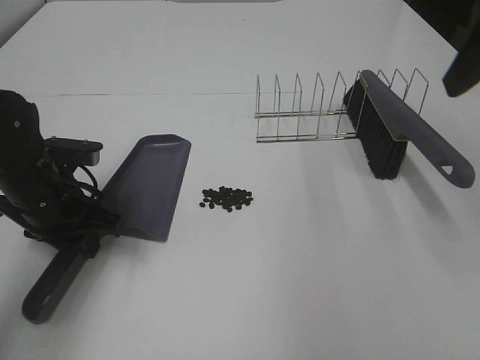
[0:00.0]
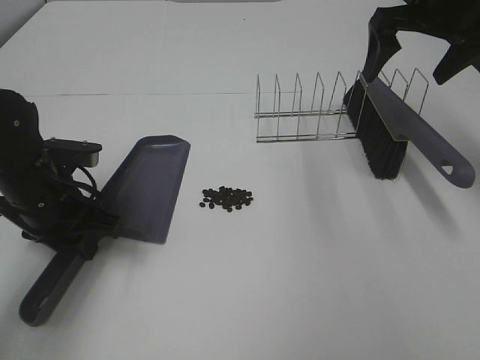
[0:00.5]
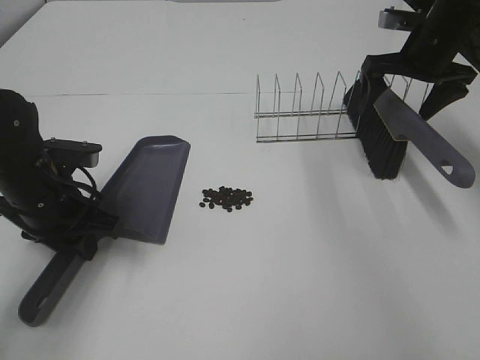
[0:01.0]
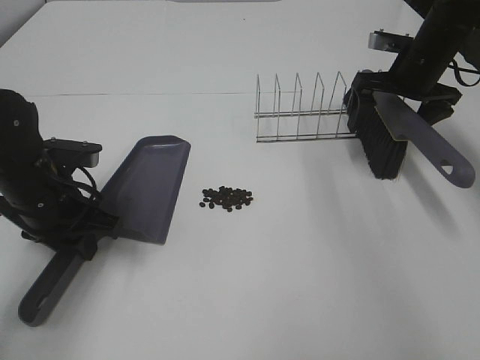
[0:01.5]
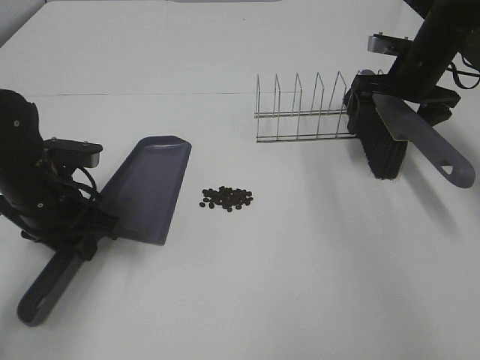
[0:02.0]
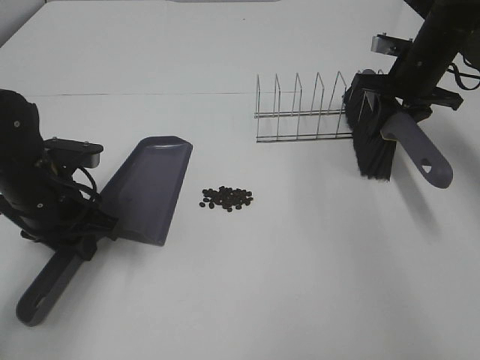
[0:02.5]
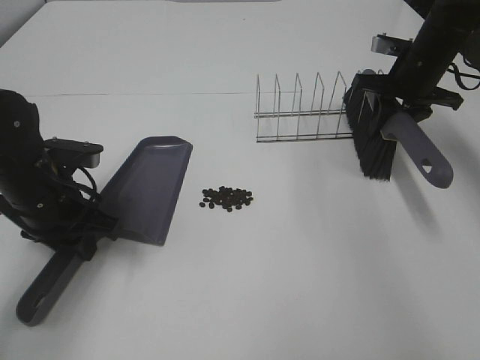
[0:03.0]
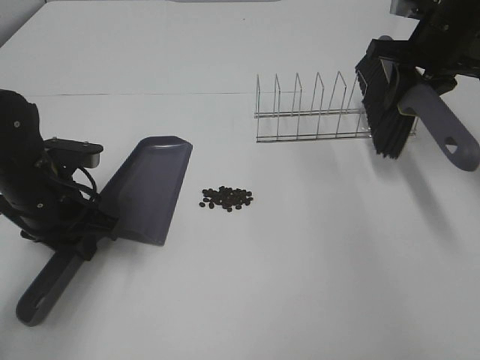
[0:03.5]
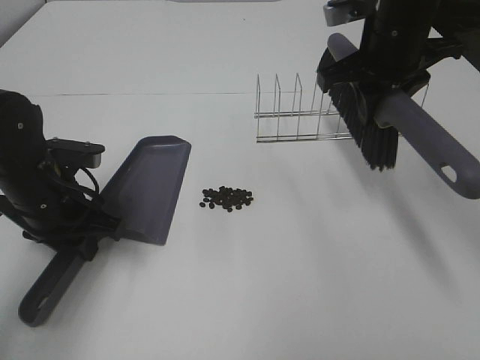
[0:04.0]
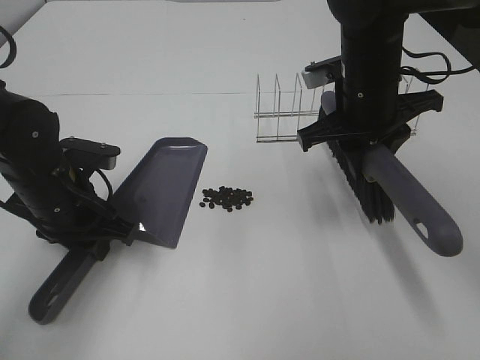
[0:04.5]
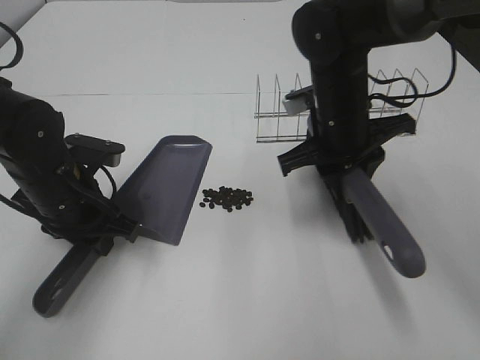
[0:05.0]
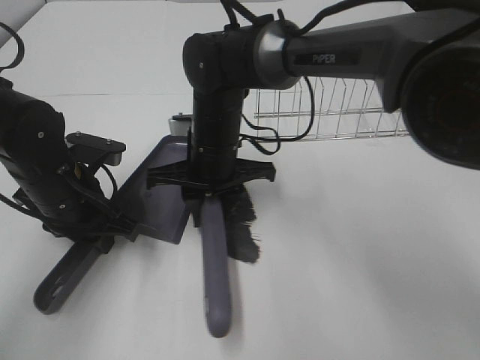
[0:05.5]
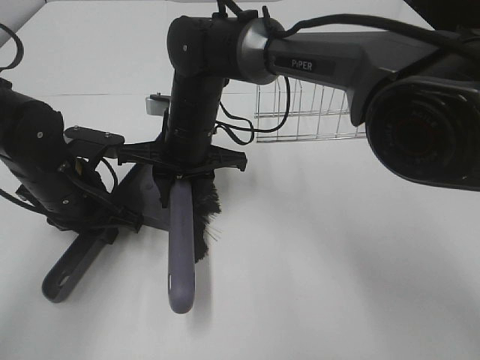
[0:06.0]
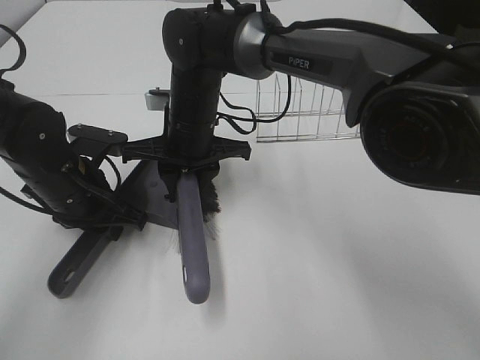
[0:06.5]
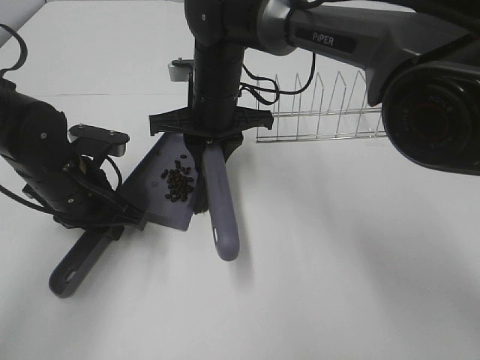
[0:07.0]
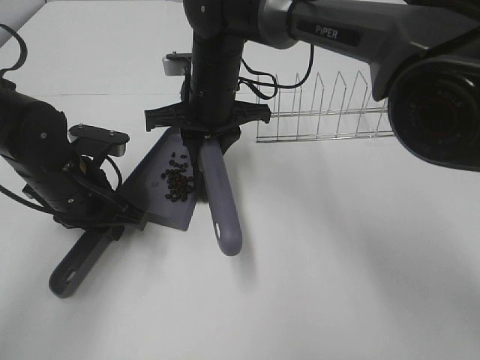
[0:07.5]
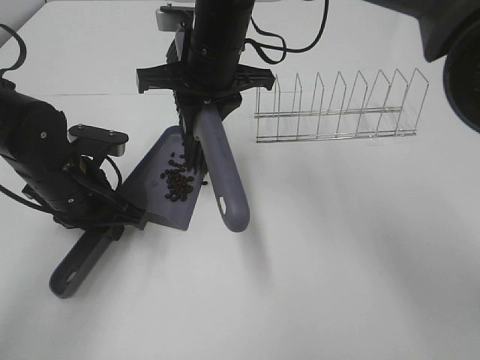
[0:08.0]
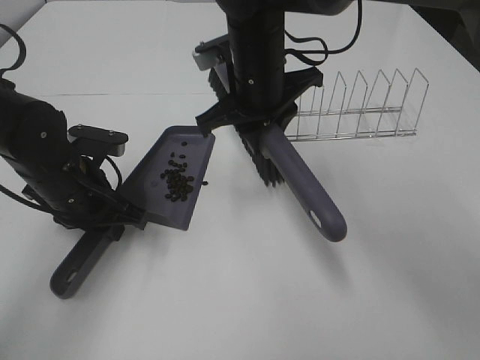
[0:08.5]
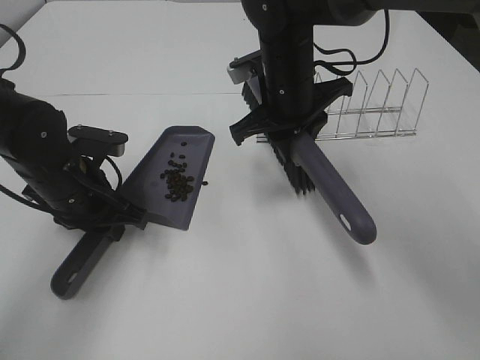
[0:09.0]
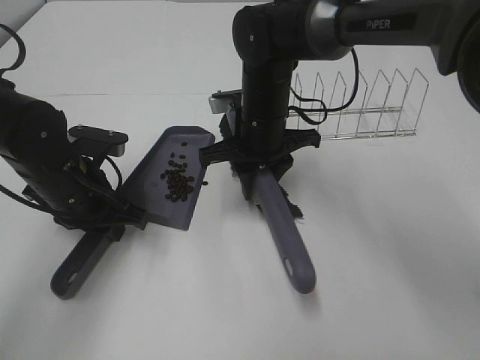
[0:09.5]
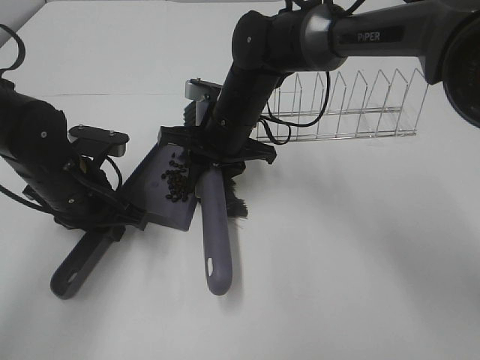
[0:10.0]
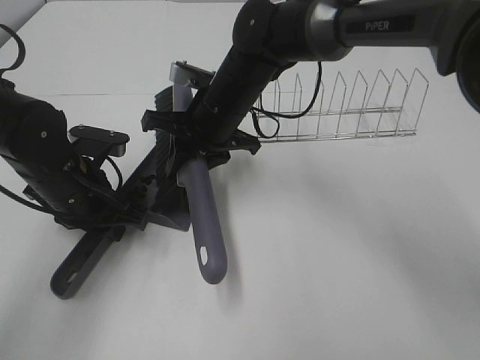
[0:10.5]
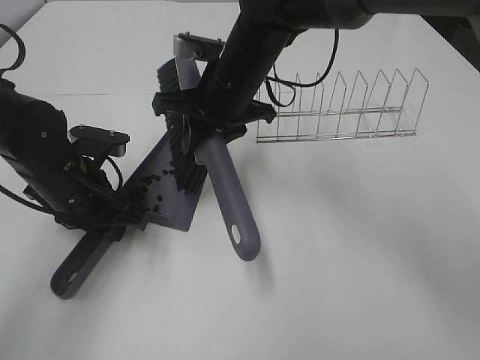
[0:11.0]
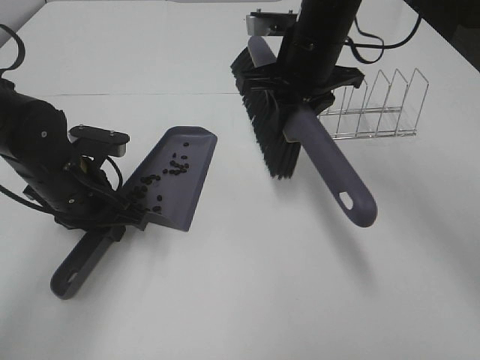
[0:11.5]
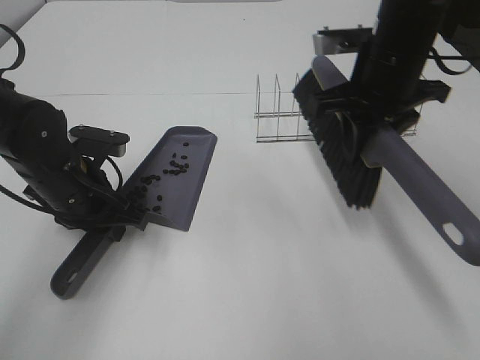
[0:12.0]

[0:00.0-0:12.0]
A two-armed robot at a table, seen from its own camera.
Task of the whole recording: Sweep Coffee Bean.
Step, 0:00.0 to 0:02.0: Right hand:grab the broom.
Step, 0:02.5 to 0:10.5: Right hand:sweep the coffee beans into the dustpan.
0:00.0 to 0:02.0: The right gripper shifts some 30 cm forward and downward.
0:02.0 to 0:04.0: The right gripper is displaced to the left, backward and upward by some 15 cm, and closes up.
0:04.0 to 0:06.0: The right gripper is displaced to the left and downward by about 25 cm.
0:06.0 to 0:08.0: The right gripper moves upward, about 10 cm.
0:08.0 to 0:10.0: The right gripper shifts about 10 cm downward.
0:10.0 to 0:12.0: The right gripper goes roughly 20 cm to the right and upward.

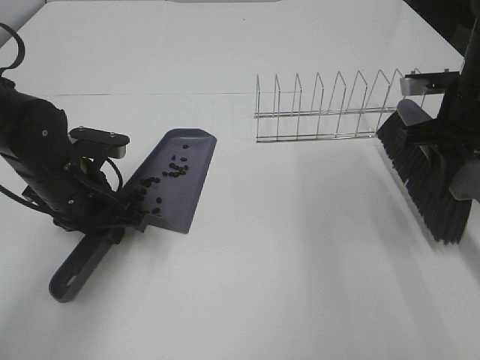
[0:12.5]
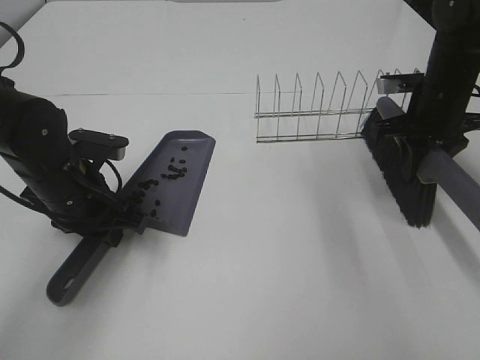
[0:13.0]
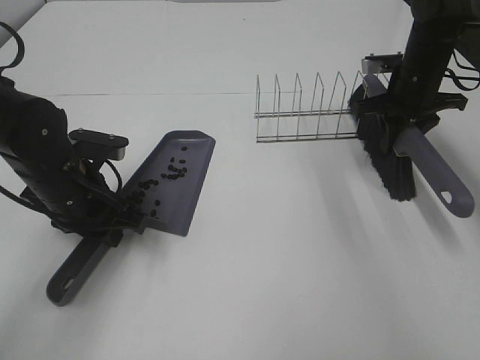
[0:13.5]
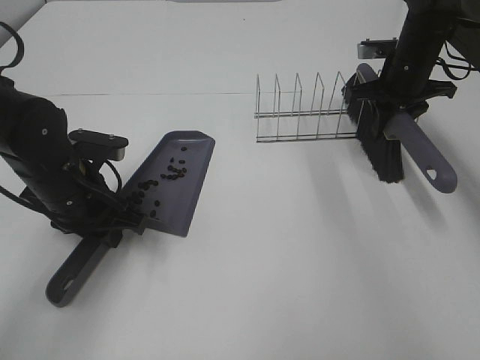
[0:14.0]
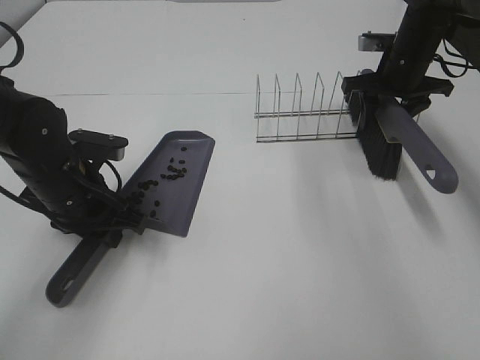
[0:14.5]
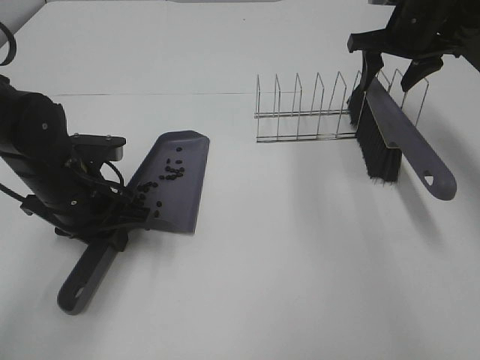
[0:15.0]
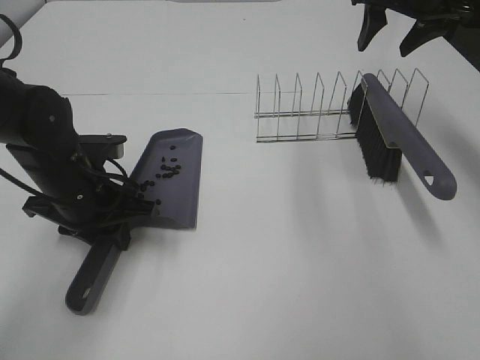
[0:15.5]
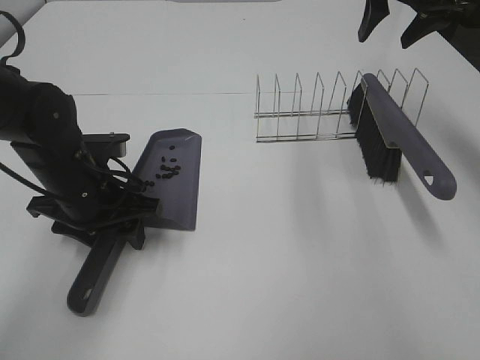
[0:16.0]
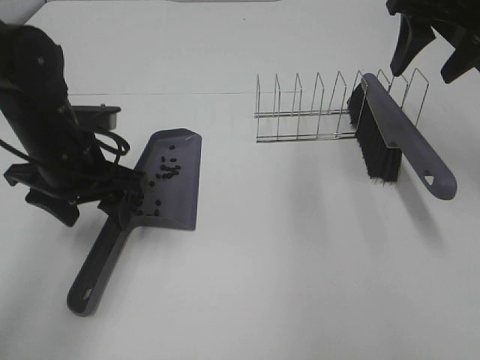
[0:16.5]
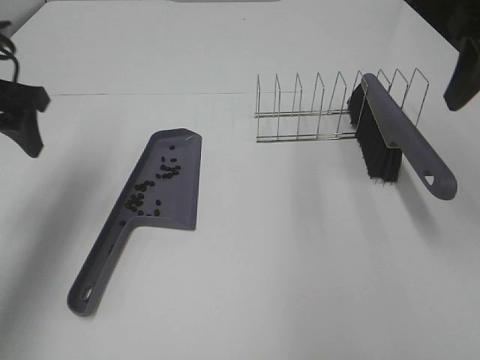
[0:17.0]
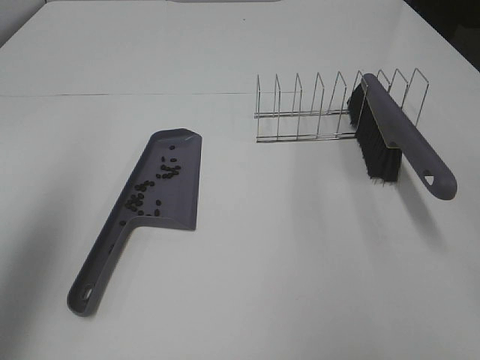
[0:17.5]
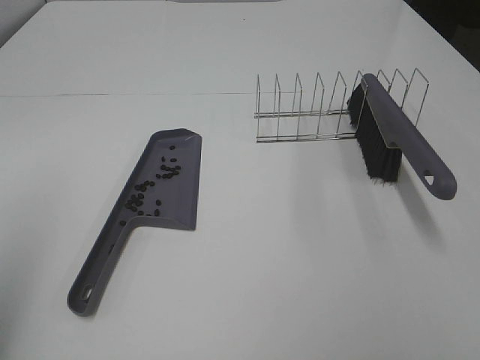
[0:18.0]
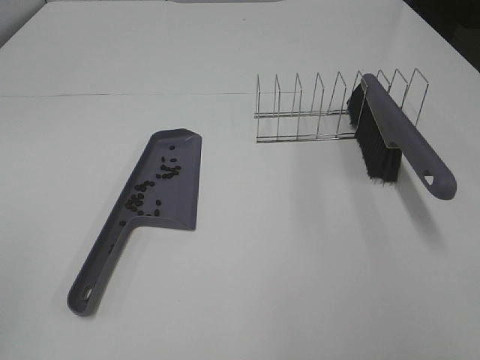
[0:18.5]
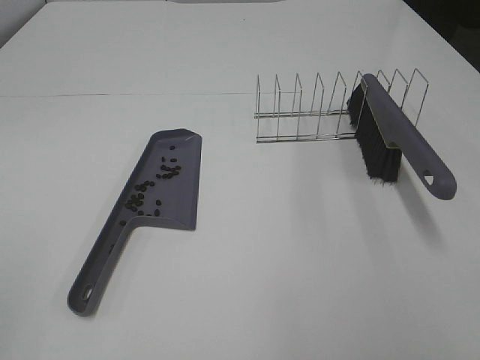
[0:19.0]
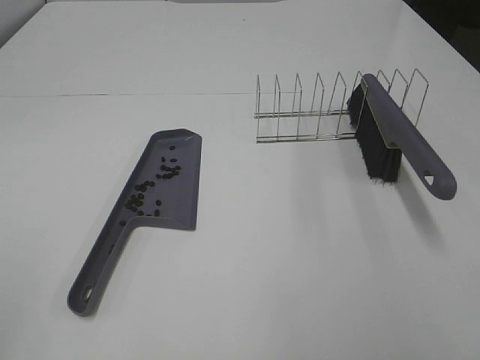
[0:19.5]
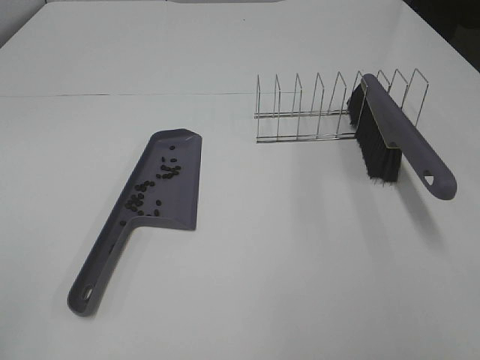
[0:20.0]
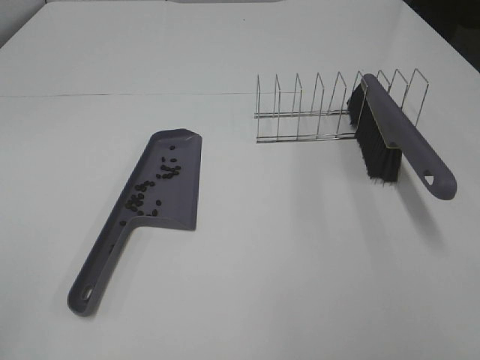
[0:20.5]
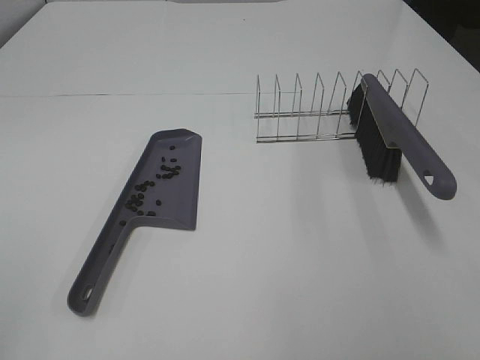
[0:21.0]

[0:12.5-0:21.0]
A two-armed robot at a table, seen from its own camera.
Task of the whole recording: Sweep Coffee Bean.
Step, 0:12.5 to 0:14.5: Right hand:place the broom on the rack.
Step, 0:15.0 to 0:16.0: Left hand:place the dustpan on the table.
0:12.5 to 0:14.5: The right gripper moves forward, about 15 cm, and opens up.
0:14.5 to 0:16.5: The left gripper is displaced upward by some 5 cm, and opens its fingers, while the right gripper is displaced upward and backward by about 20 cm.
0:16.5 to 0:19.0: The right gripper goes roughly 40 cm backward. The left gripper is displaced backward, to the left and upward by roughly 40 cm.
0:19.0 to 0:21.0: The two grippers keep their place.

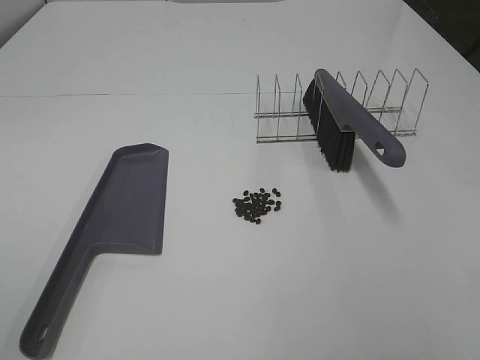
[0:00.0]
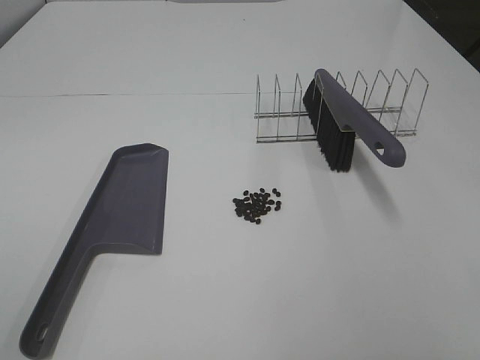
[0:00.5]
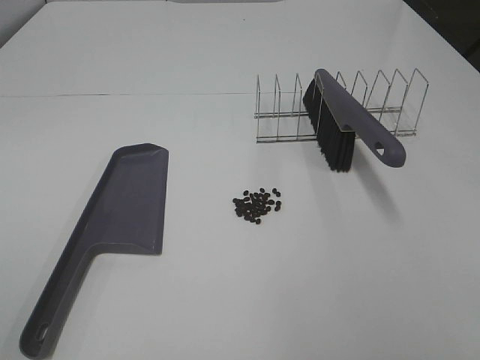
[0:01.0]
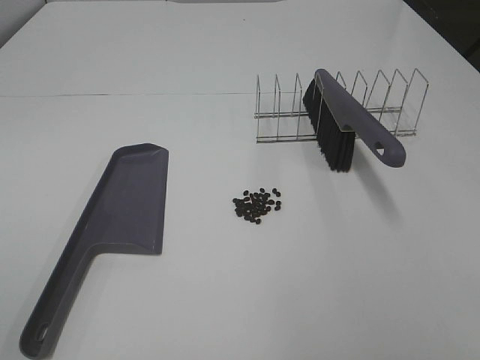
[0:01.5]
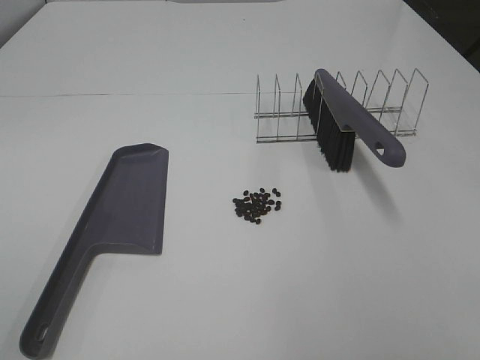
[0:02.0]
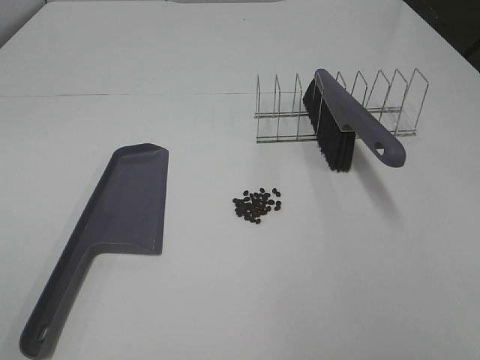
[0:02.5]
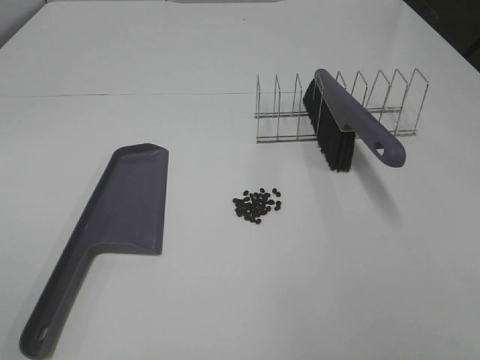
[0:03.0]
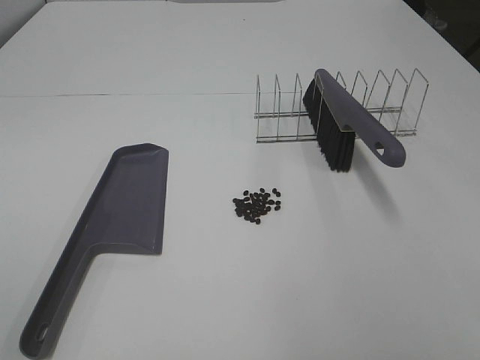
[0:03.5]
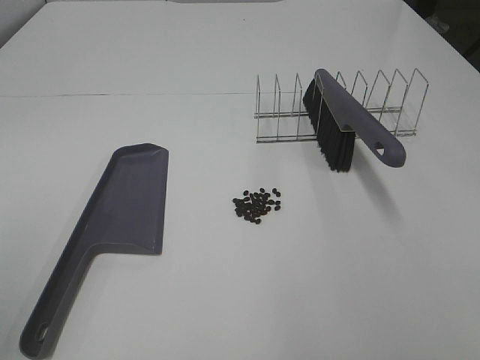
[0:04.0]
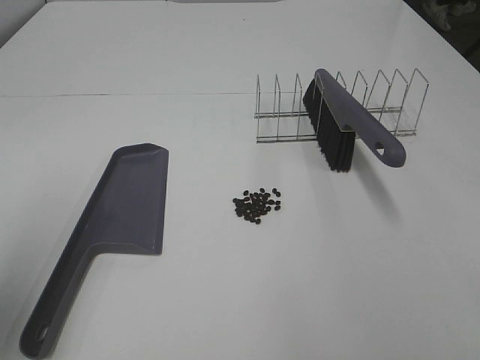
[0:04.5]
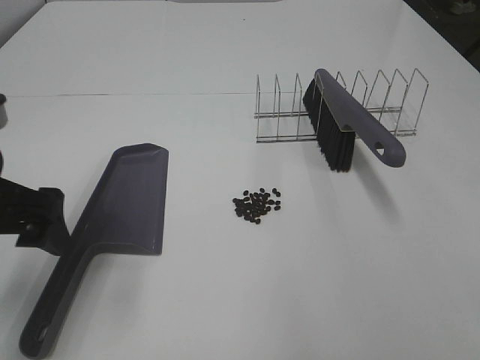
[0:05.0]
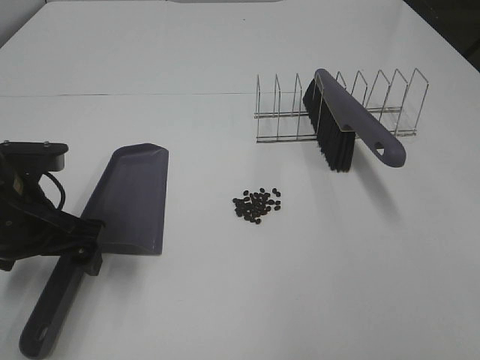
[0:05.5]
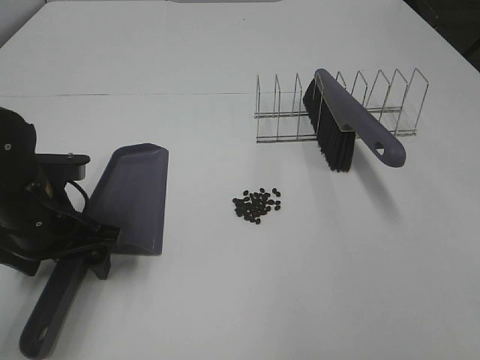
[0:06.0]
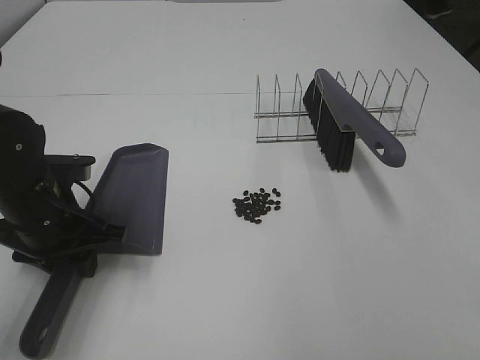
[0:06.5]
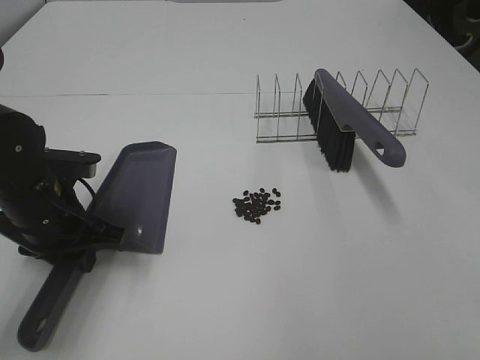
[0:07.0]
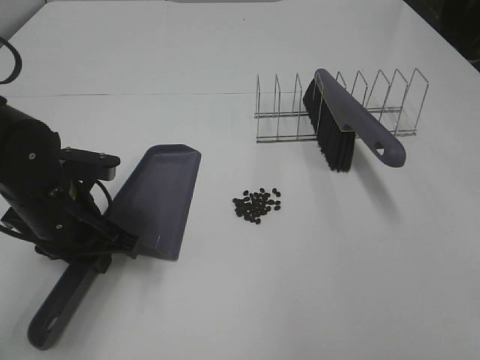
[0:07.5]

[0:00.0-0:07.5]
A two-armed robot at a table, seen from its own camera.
Task of the whole recording: Sweep Coffee Bean.
Step, 0:00.0 to 0:06.5: Left hand: grab the dustpan.
0:04.0 to 0:05.5: The left gripper shifts about 30 cm forward, downward and to the right.
0:05.5 to 0:07.5: The left gripper changes place by some 5 cm, and closes up.
